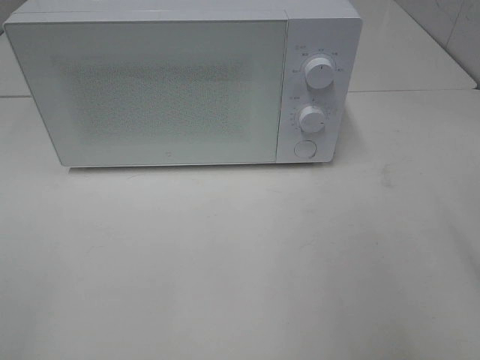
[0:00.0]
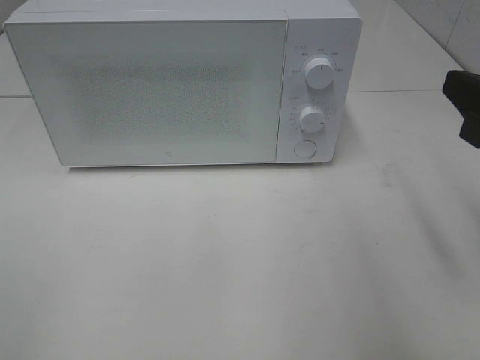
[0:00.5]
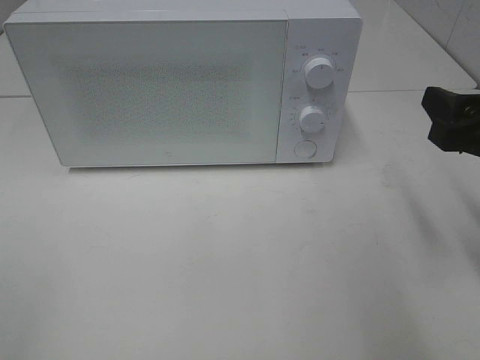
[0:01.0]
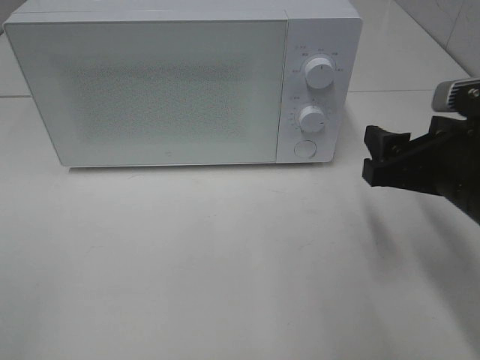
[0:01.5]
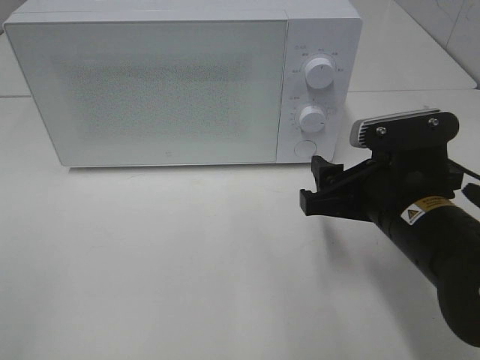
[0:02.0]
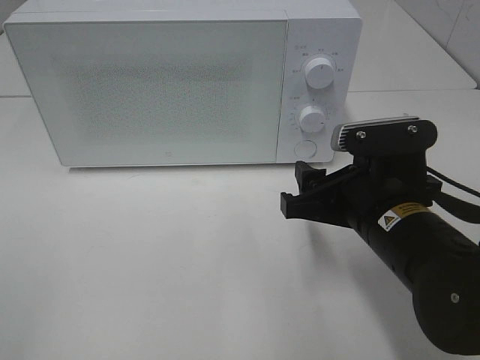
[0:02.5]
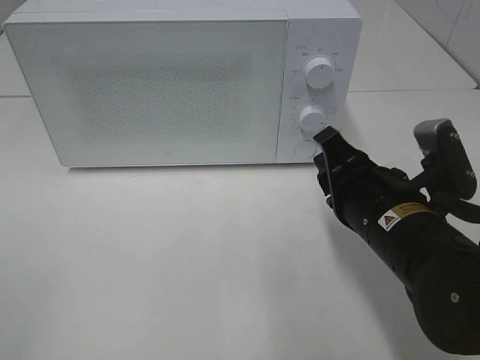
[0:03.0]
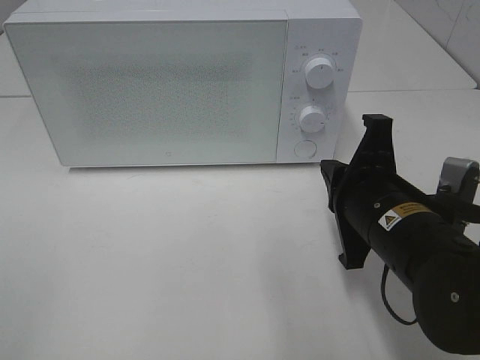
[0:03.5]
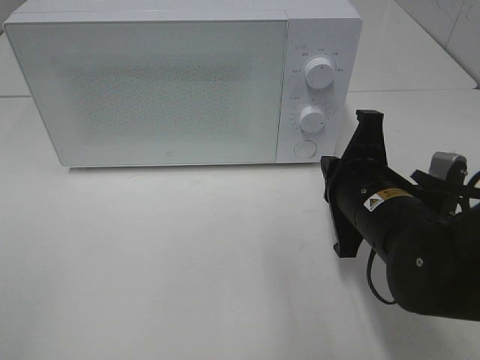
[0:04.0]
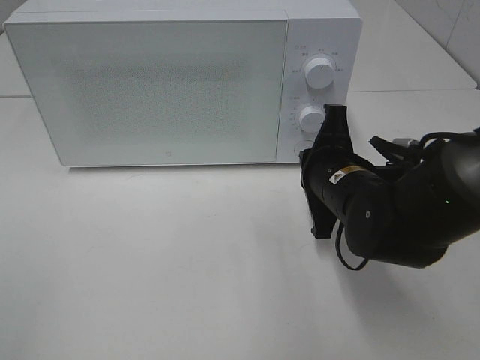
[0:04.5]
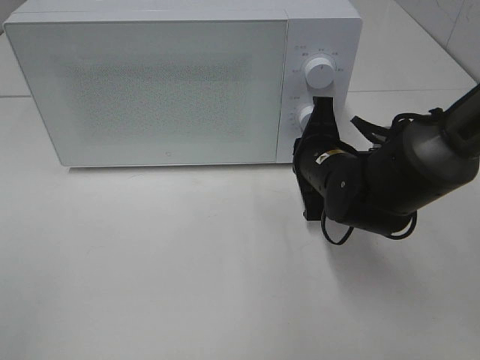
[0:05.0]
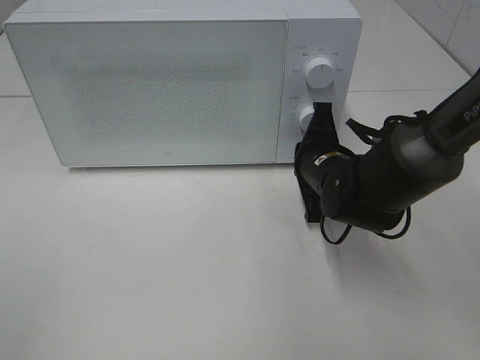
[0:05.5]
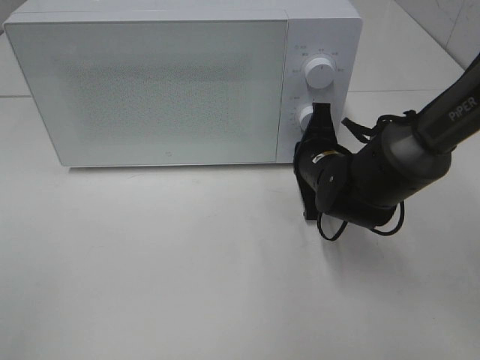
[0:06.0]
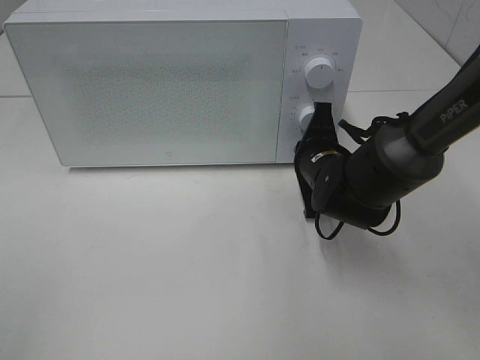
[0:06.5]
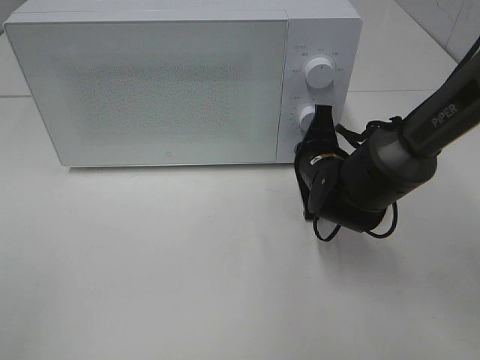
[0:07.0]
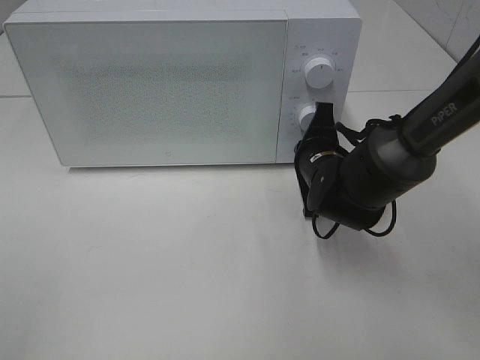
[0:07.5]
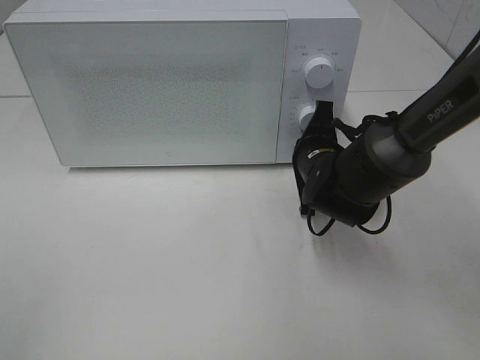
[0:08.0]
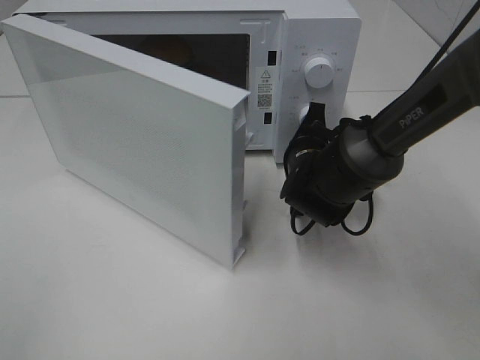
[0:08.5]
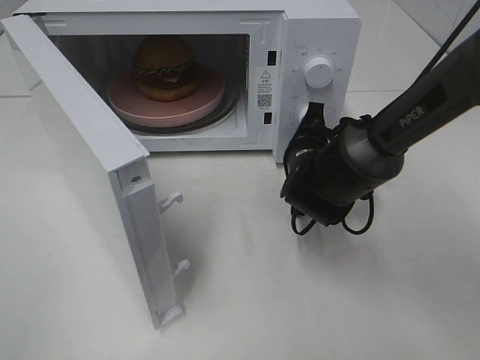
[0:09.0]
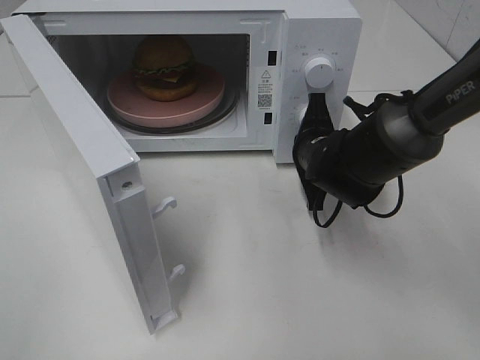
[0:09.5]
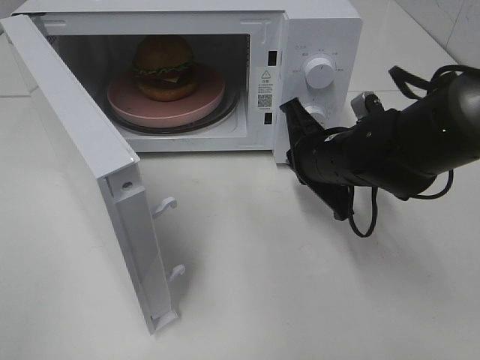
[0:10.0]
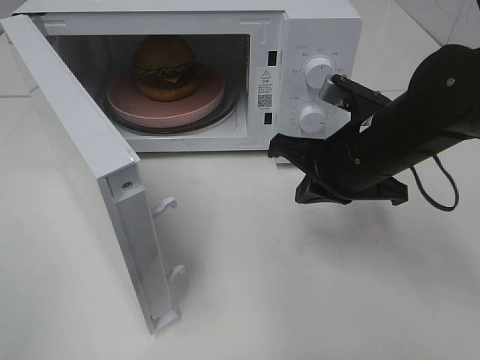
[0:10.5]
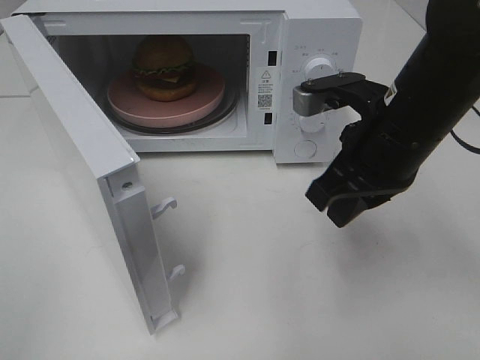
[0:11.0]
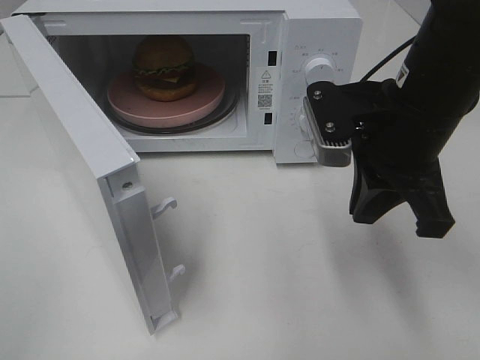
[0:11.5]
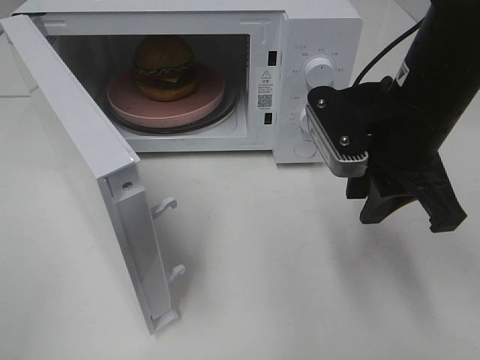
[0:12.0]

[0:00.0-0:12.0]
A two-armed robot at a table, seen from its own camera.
Task of the whole recording: Heat the burger.
Step, 0:00.0 to 0:09.5: Right hand: press the switch.
0:00.0 to 0:02.0: The right gripper goes roughly 20 cm downward, to the left and forward.
0:02.0 to 0:04.0: The right gripper closes.
0:04.0 to 0:06.0: The right gripper goes about 10 cm forward.
0:06.0 to 0:08.0: The grippers move only a little.
0:08.0 to 0:10.0: The right gripper ends up about 5 cm from where it was.
0:10.0 to 0:12.0: The right gripper heads upward and backward, covering some 10 cm, and opens its fingers.

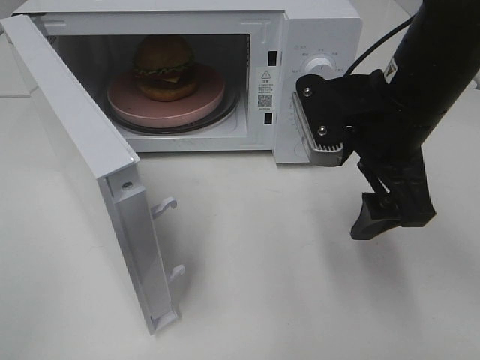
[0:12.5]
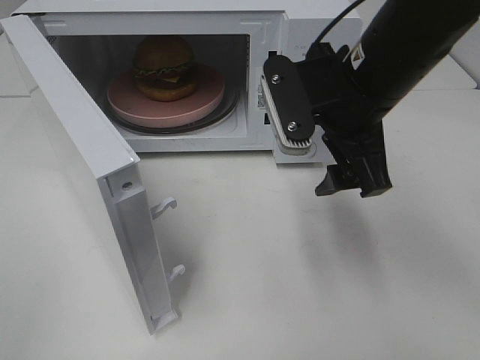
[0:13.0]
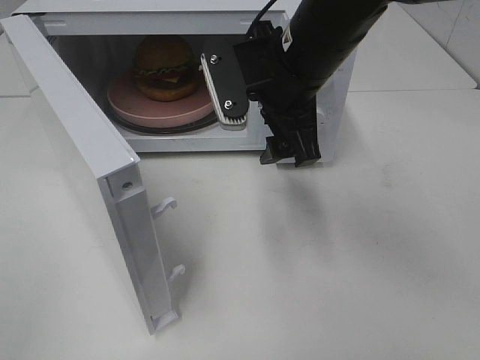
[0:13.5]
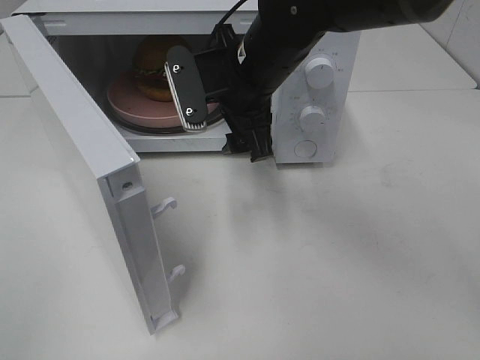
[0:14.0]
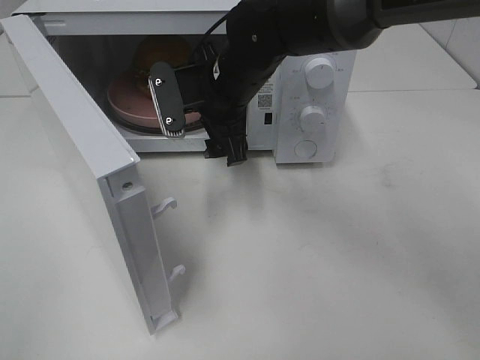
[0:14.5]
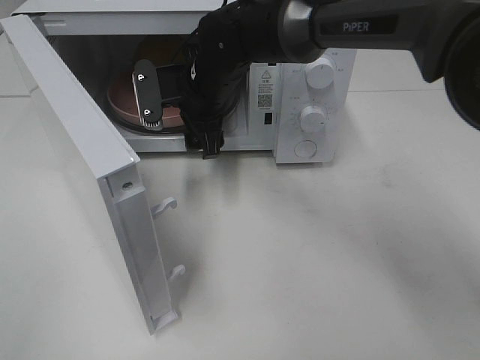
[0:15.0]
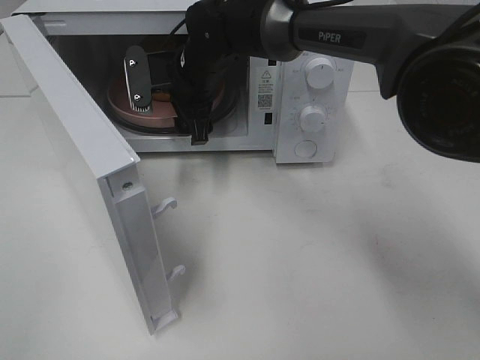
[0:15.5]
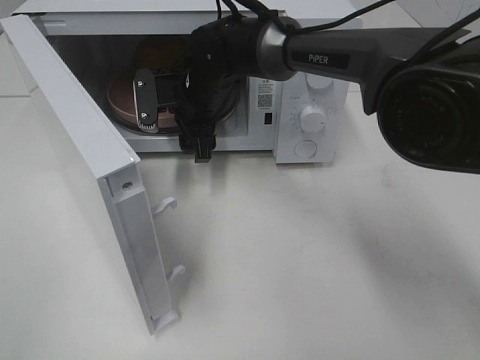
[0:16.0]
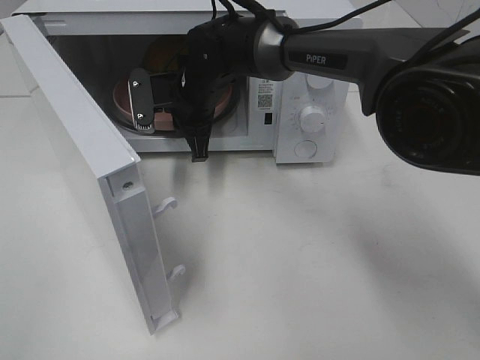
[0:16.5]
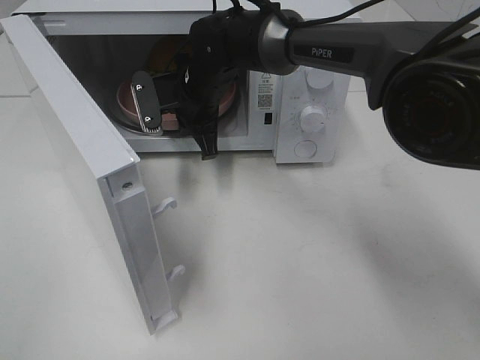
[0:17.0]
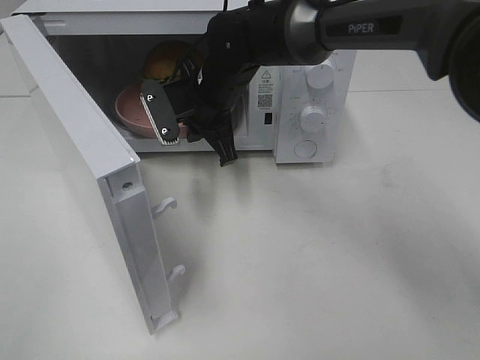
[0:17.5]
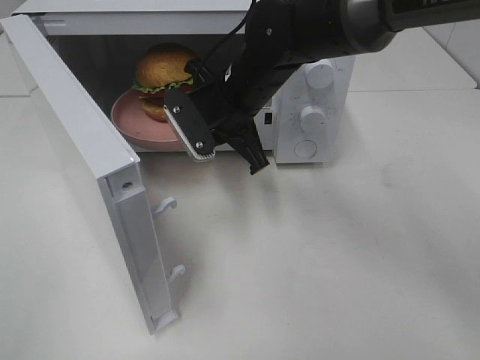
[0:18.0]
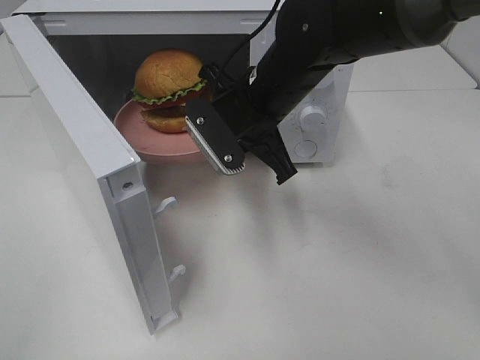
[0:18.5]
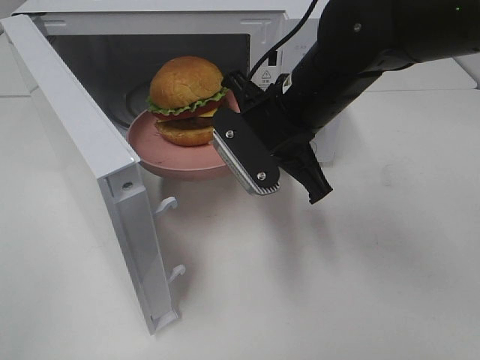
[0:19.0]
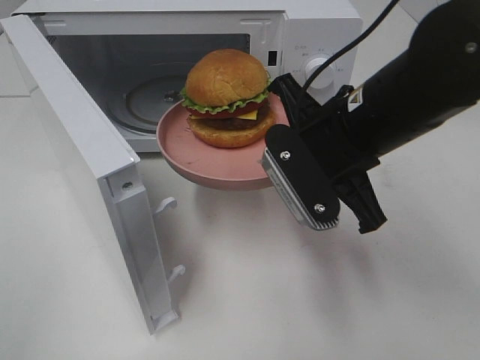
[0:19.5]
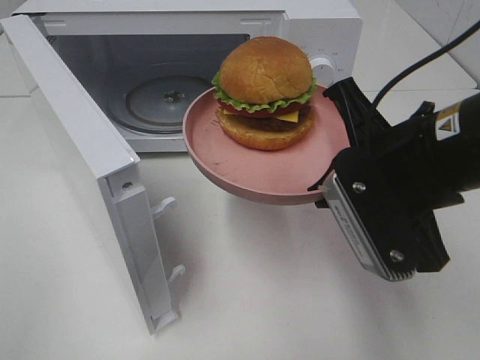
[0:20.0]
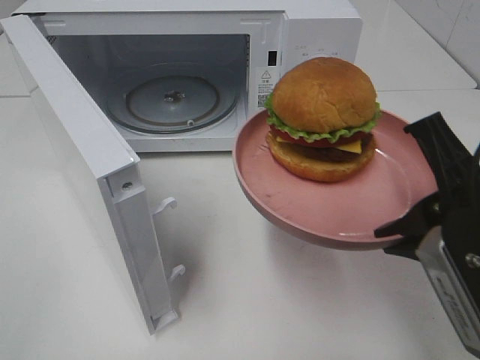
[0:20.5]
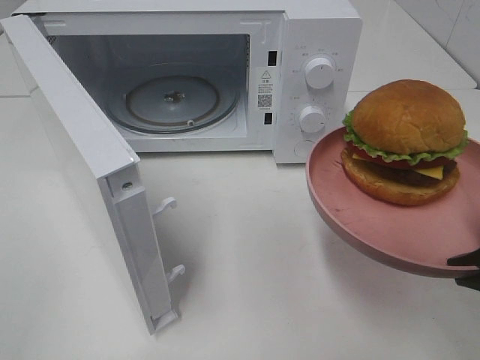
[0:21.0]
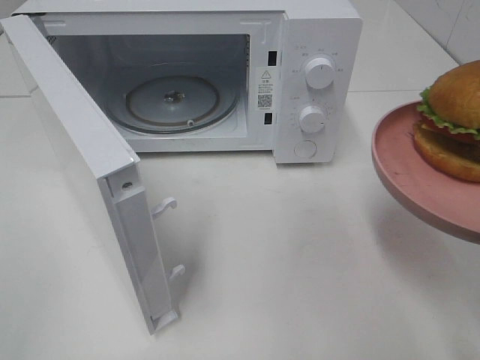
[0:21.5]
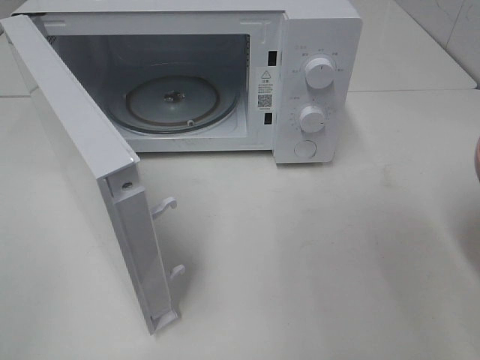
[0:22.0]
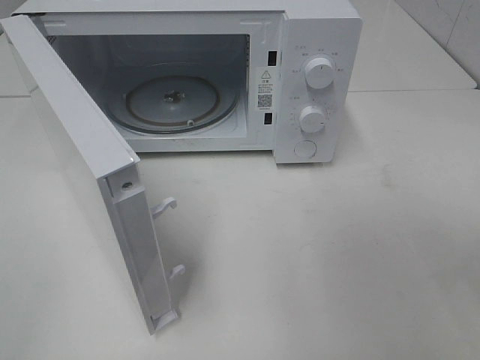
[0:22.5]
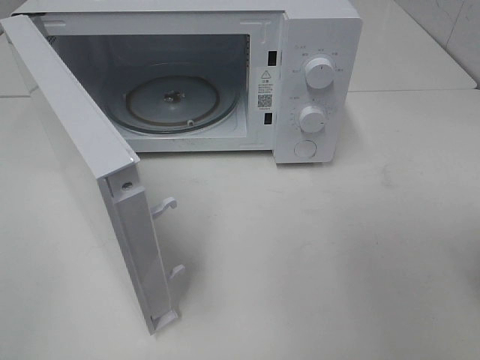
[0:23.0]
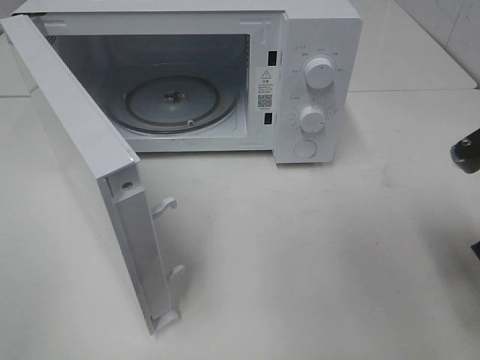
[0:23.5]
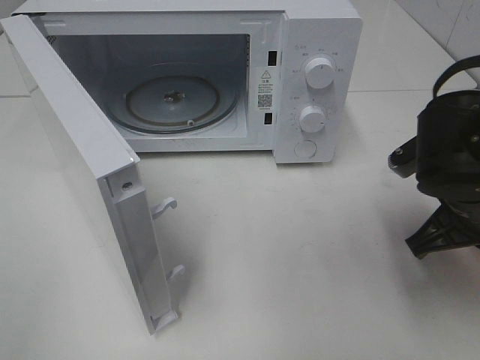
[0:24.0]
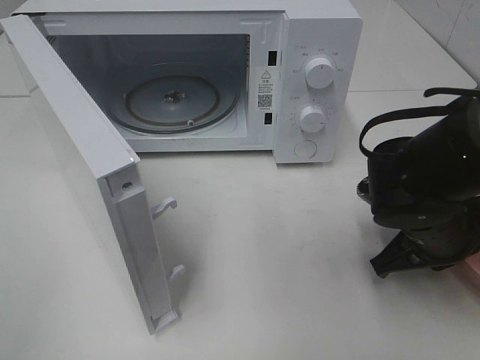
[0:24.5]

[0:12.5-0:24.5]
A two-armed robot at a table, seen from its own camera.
Task of the whole recording: Heat the burger.
Step, 0:12.5 to 0:16.5: Right hand: grab the plate with the hamburger.
0:12.5 to 0:14.5: The right gripper heads to the left and forward, covering roughly 20 cm.
0:14.5 to 0:16.5: The right gripper shifts roughly 5 cm forward, and closes its fingers.
0:16.5 to 0:18.5: The right gripper heads backward, to the right and upward, covering roughly 15 cm.
0:18.5 to 0:20.5: The right gripper heads backward and to the right, covering some 25 cm.
0:20.5 to 0:22.5: The right gripper travels to the right by approximately 10 cm.
0:22.5 to 0:24.5: The right gripper goes about 20 cm forward, downward and to the left.

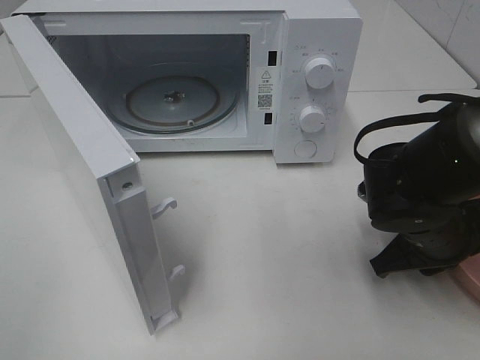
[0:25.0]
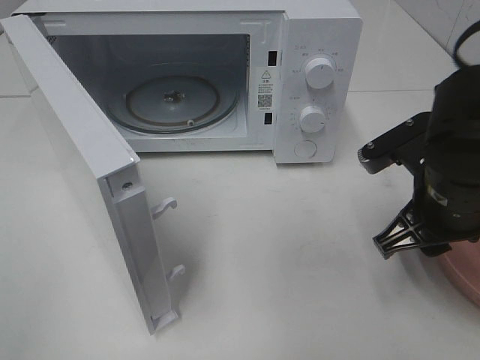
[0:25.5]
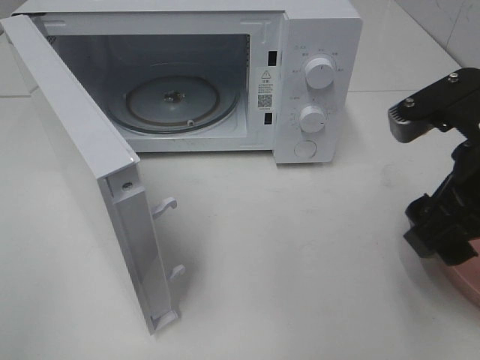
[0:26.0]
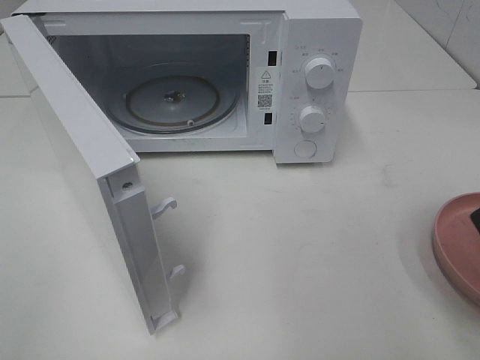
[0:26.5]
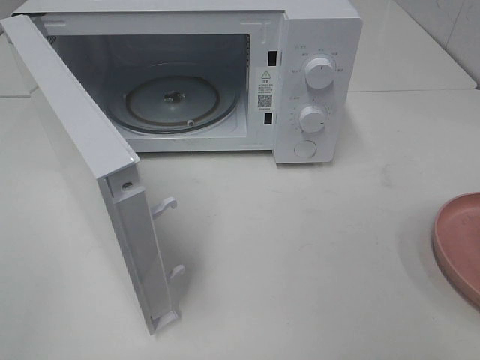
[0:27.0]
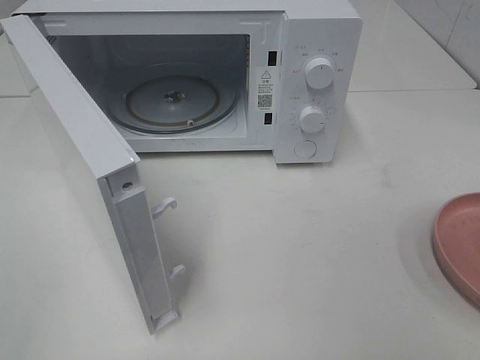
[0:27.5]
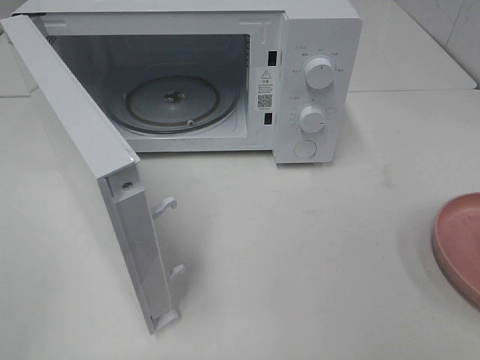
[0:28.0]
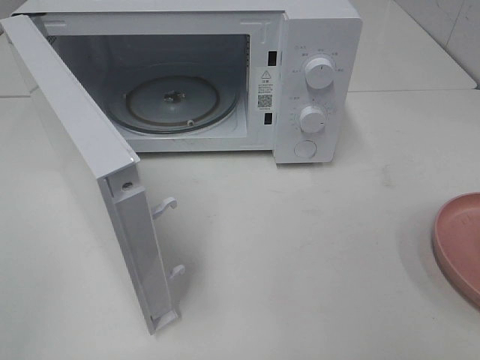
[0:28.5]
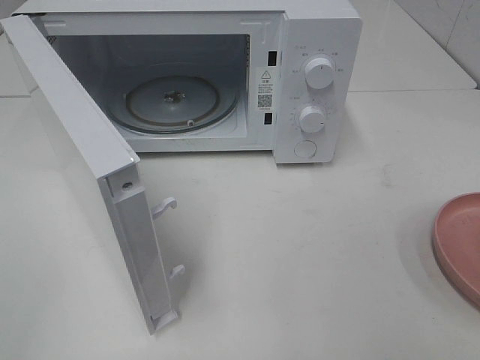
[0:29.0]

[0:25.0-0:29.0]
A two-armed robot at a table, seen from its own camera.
Task of the whole recording: Heat the burger.
0:25.0 to 0:27.0: The right gripper heads upward and backward, covering roughly 25 cm, and opens its fingers.
